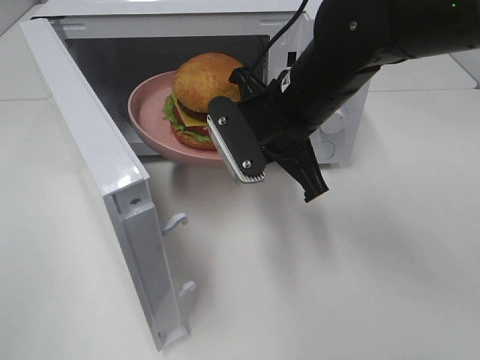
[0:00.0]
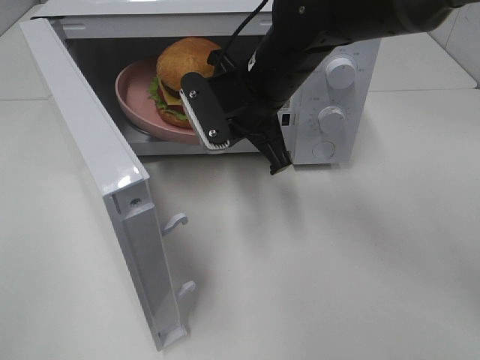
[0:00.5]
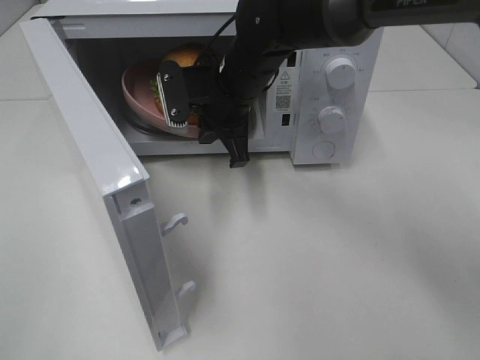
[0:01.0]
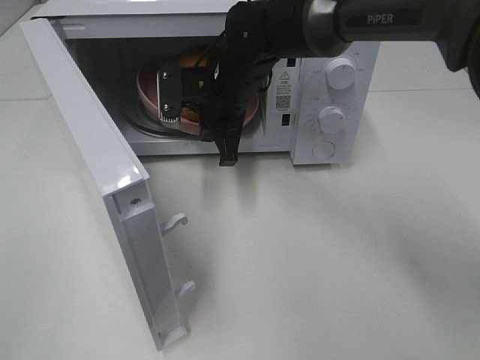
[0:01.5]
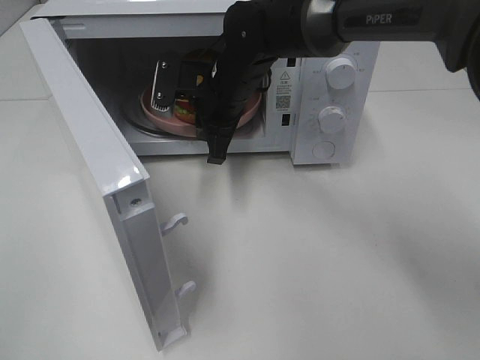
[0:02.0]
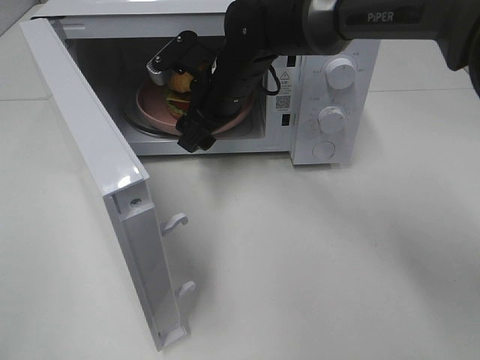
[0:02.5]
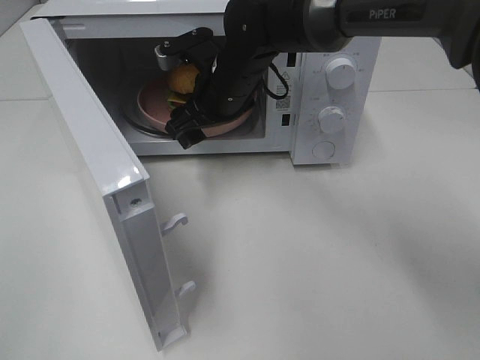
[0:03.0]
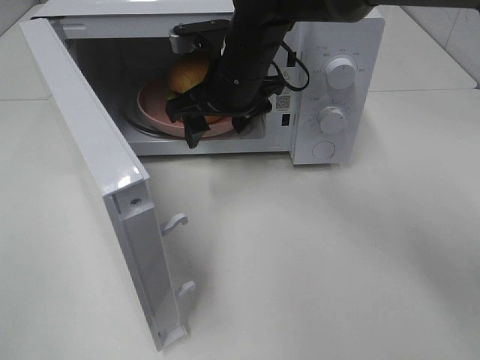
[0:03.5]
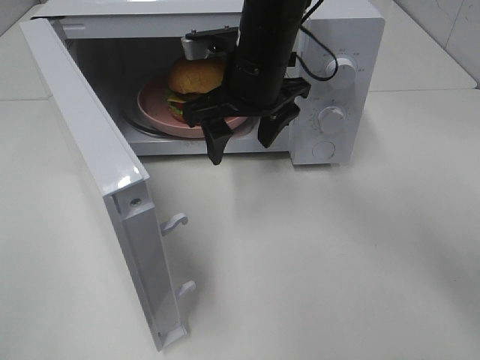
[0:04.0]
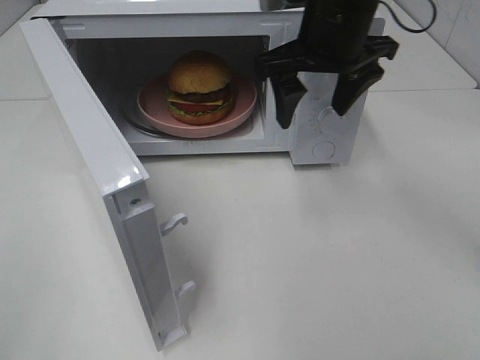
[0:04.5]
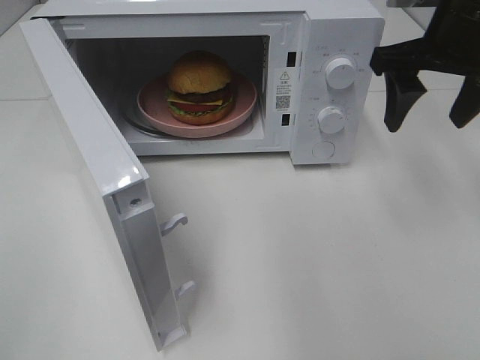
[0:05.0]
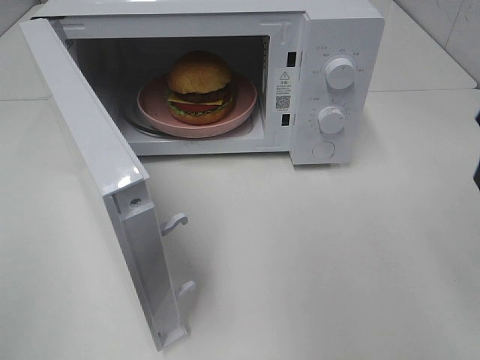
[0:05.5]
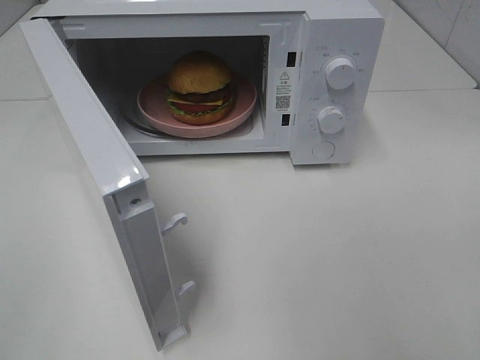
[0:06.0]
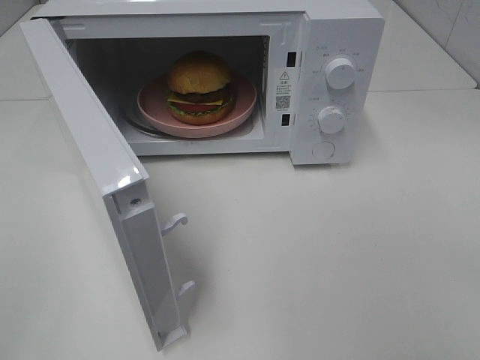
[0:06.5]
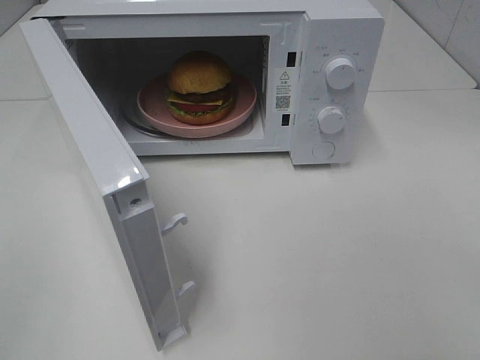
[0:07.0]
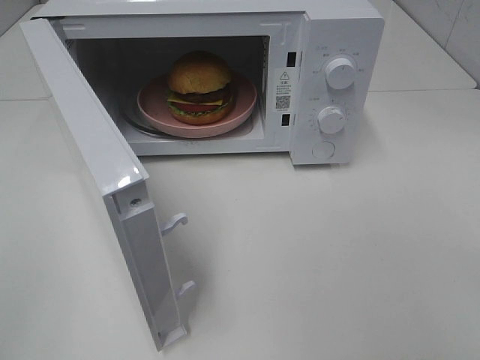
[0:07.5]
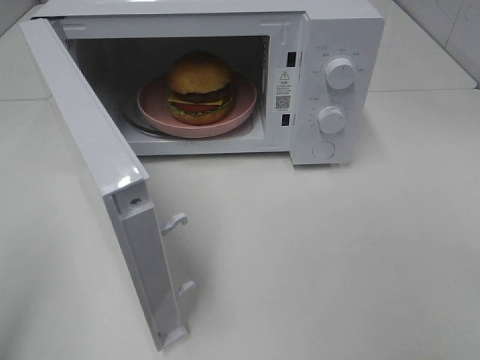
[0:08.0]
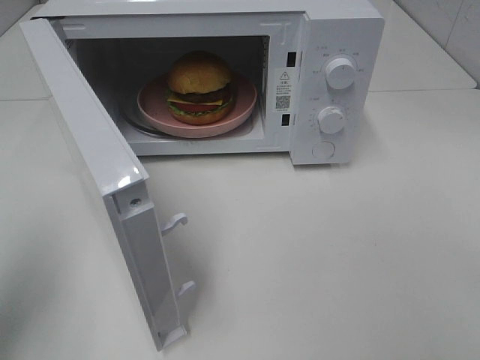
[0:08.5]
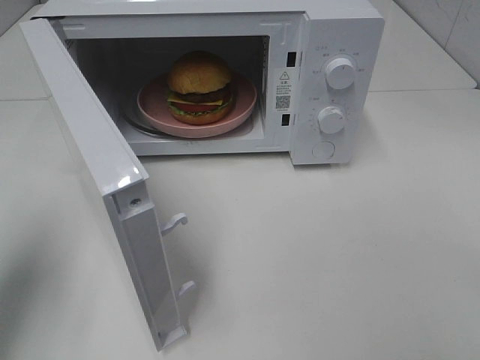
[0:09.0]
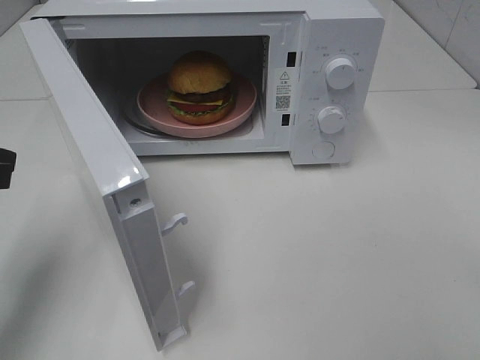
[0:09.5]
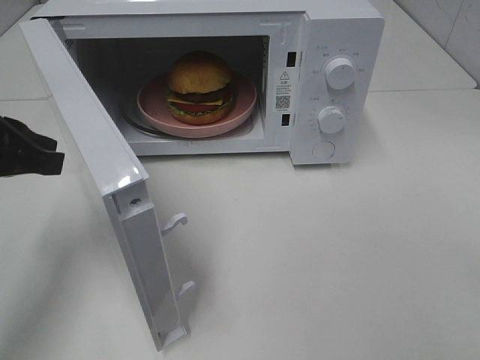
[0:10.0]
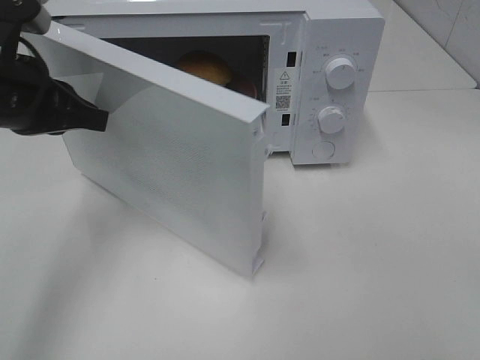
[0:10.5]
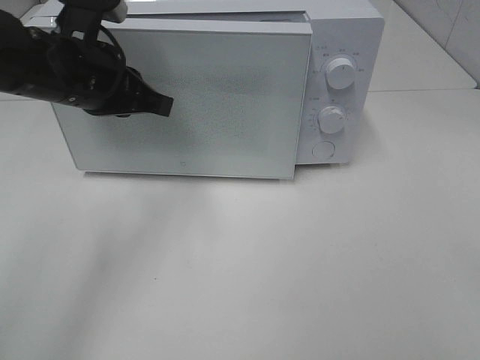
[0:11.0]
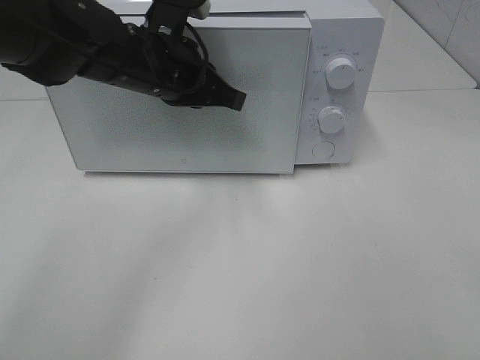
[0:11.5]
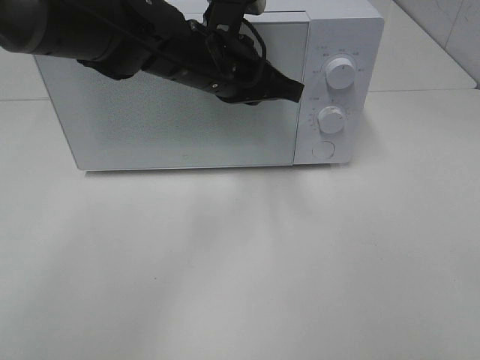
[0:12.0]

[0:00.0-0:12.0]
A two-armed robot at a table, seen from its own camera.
Task of the whole recording: Heat the burger.
Step, 0.0 to 2.0 s: Right hand: place the plate in the microwave.
0.0 to 2.0 s: The right gripper is displaced forward and to the left by roughly 10 cm.
2.0 to 4.0 s: The right gripper moves upward, approximately 5 cm, and opens its fingers.
4.0 to 6.0 s: The right gripper moves backward and to the right, some 35 cm.
8.0 to 10.0 s: The left gripper moves forward and downward, roughly 20 cm.
10.0 to 12.0 s: The left gripper heads to the right and forward, covering some 25 cm.

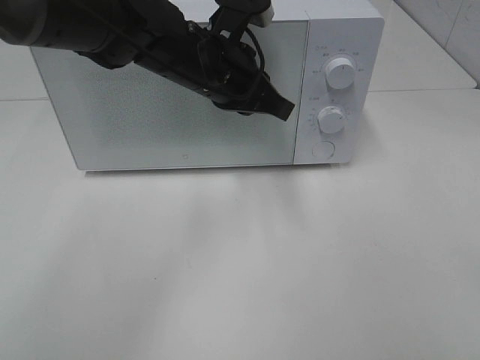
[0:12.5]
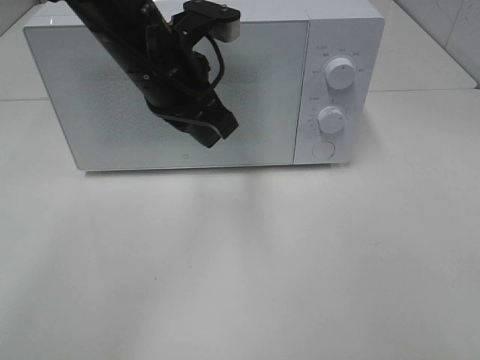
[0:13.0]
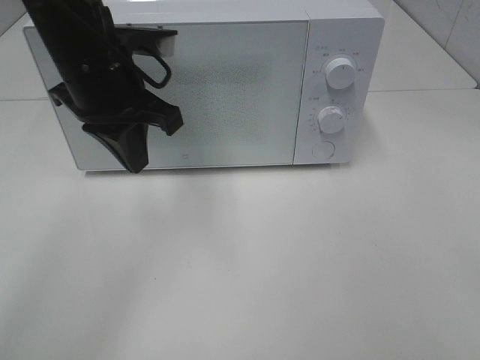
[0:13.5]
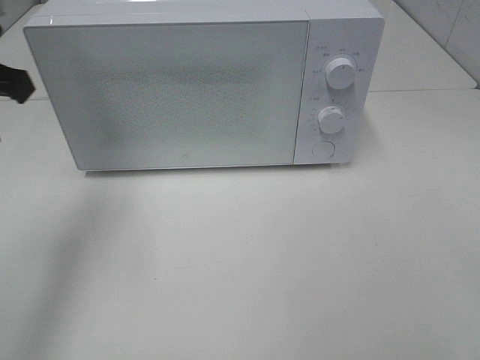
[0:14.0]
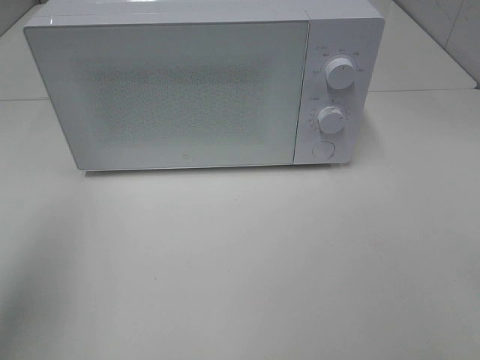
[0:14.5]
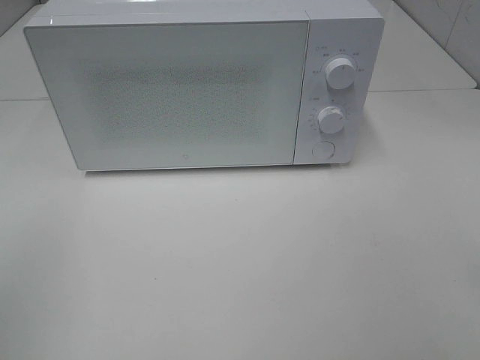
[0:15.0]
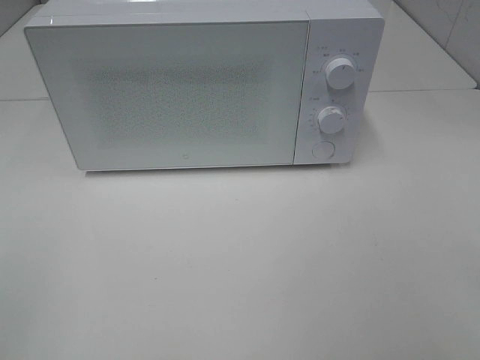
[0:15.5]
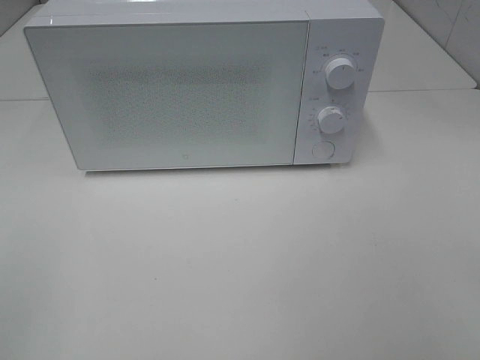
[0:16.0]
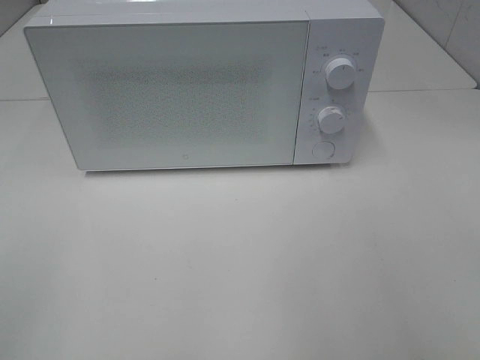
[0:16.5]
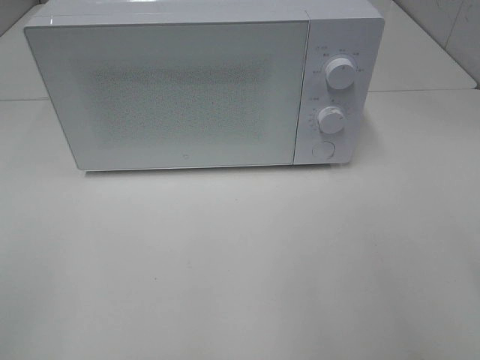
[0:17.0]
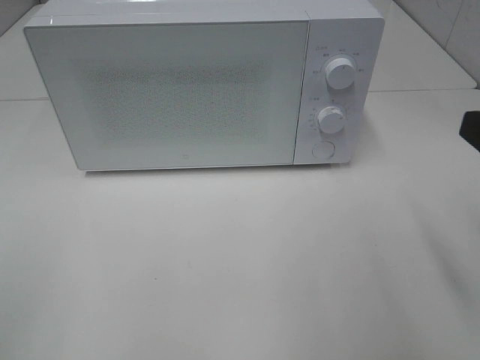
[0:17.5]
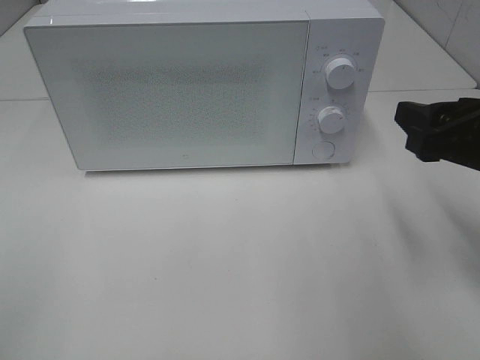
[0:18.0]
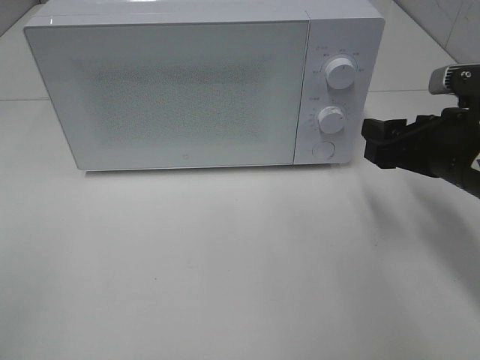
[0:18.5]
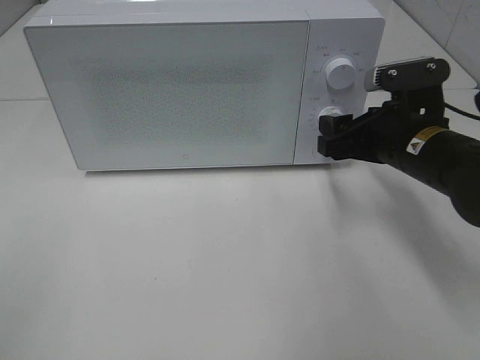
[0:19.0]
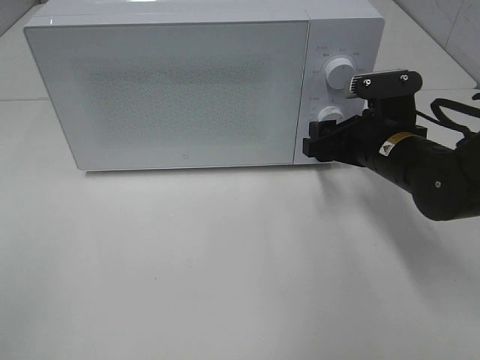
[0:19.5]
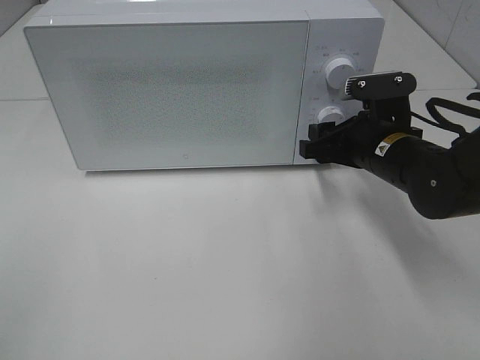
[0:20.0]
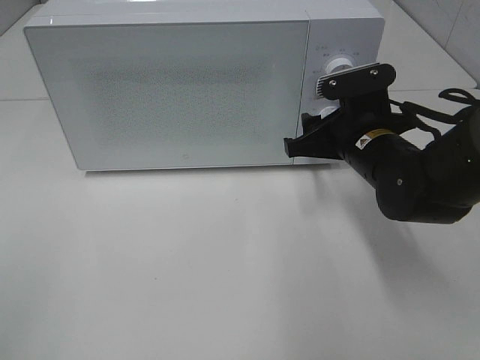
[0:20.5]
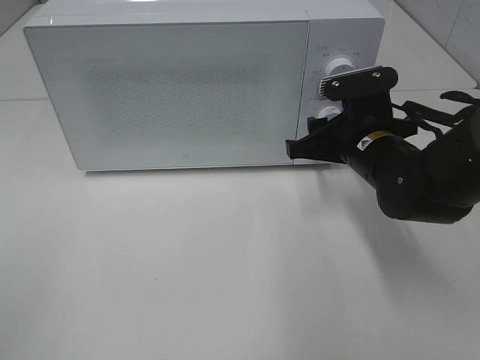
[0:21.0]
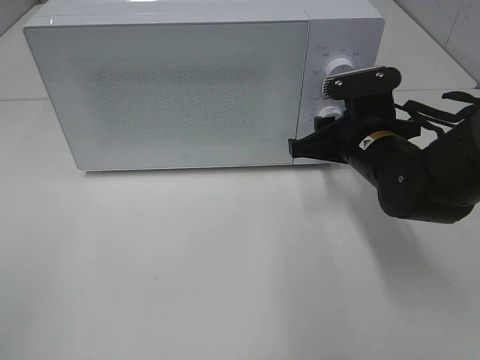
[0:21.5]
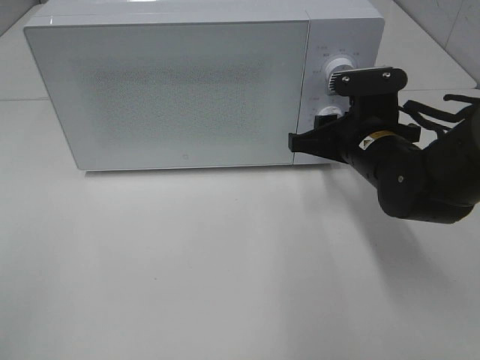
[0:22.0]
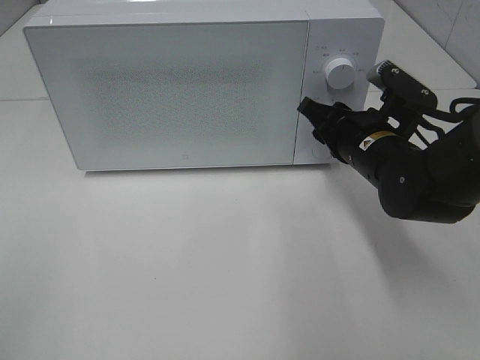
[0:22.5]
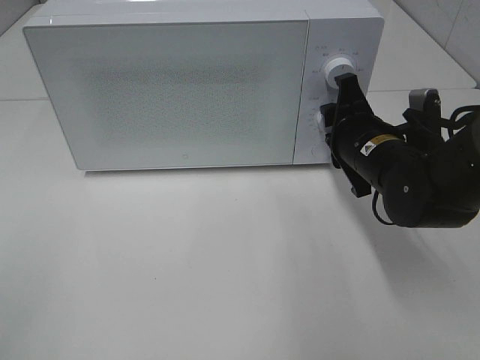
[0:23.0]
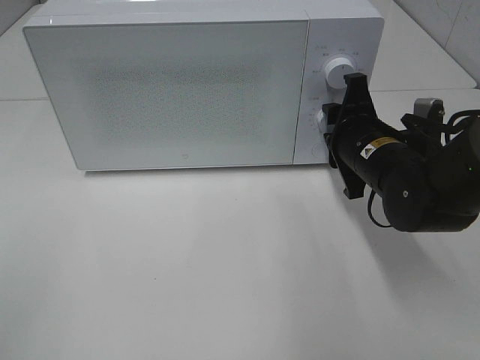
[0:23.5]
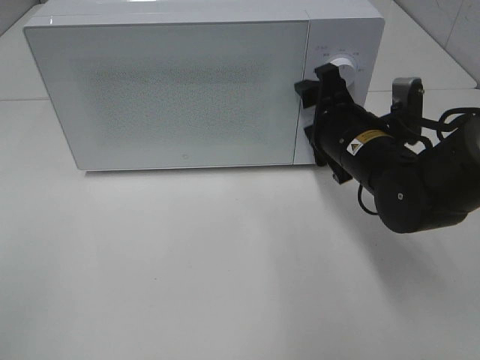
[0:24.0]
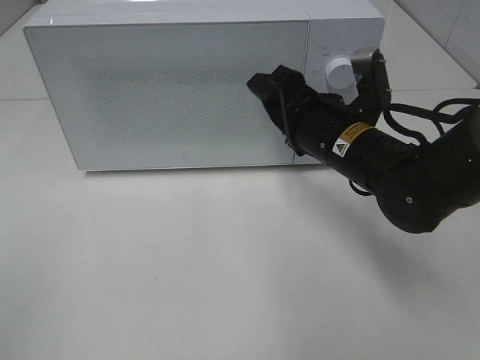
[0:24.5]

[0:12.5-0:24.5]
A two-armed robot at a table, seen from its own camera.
Task of the whole recording: Heat the burger.
Step, 13.0 to 23.5 s: Right hand: twist timer button.
12.5 to 14.5 s: The left gripper goes roughly 35 cm to the left, backward and upward.
14.5 to 16.5 s: The left gripper heads backward and downward, covering about 15 cm.
16.5 to 18.5 s: The right gripper shifts roughly 25 cm forward and downward.
18.5 to 20.5 s: The right gripper goes some 10 cm to the left and forward.
22.5 to 24.5 s: The right gripper ends up about 5 cm from where it was.

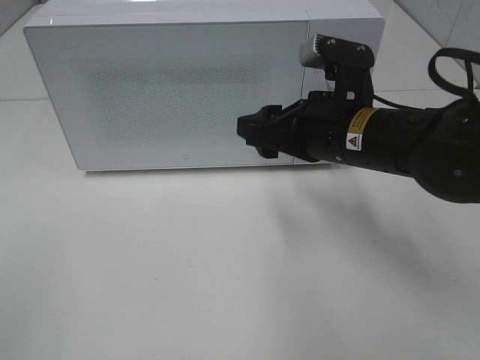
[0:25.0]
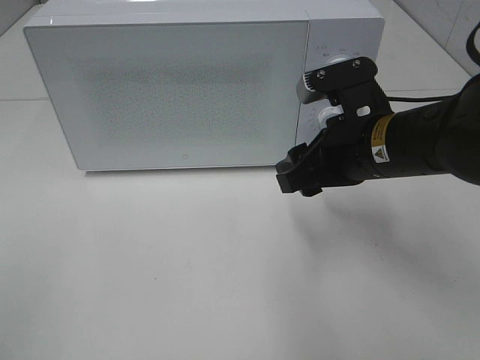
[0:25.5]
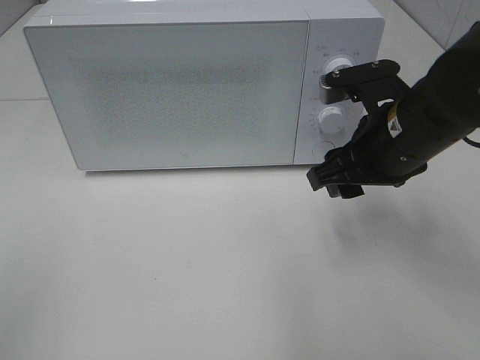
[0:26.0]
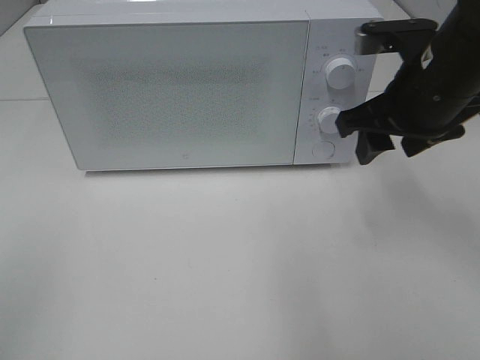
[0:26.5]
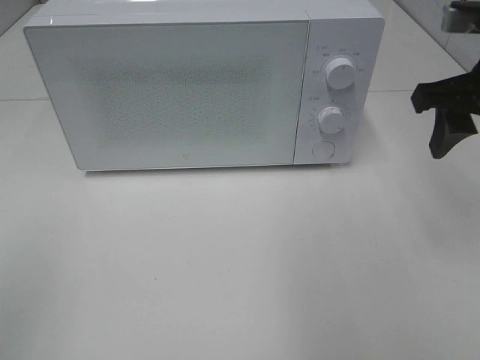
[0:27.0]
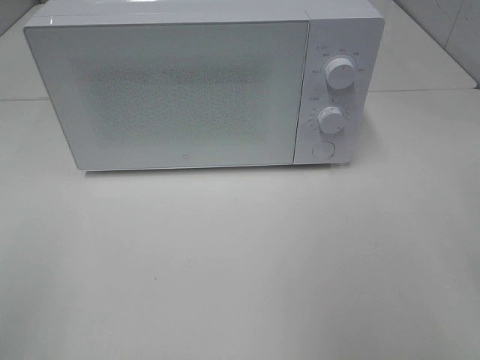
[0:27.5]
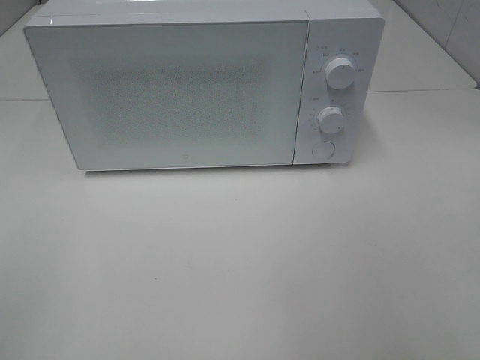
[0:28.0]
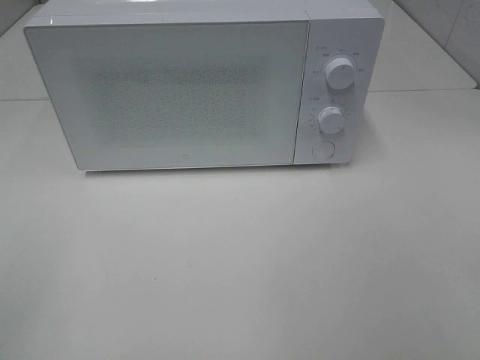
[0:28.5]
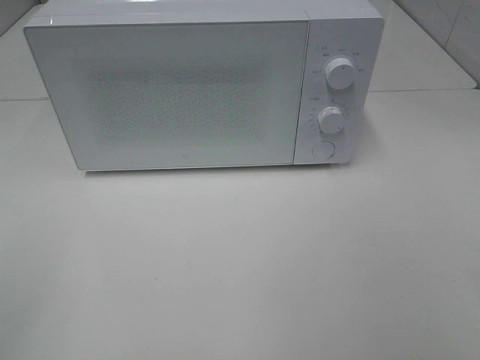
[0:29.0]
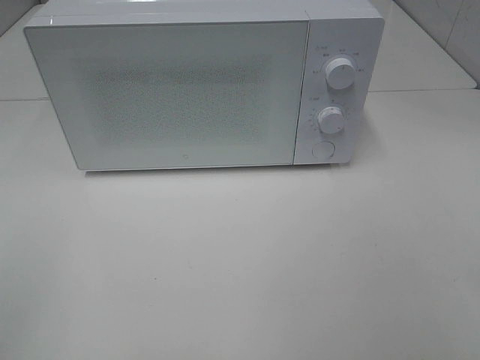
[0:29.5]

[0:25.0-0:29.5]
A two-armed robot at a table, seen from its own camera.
Task of the whole recording: Heat the burger.
25.0 to 27.0 s: The right gripper heads to the right and upward, covering about 15 cm.
27.0 to 29.5 s: The right gripper heads backward, covering approximately 30 cm.
